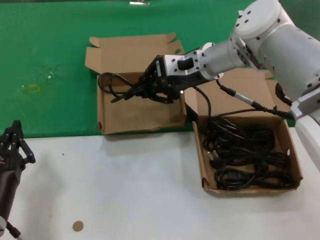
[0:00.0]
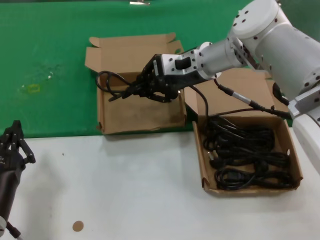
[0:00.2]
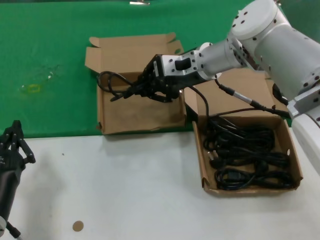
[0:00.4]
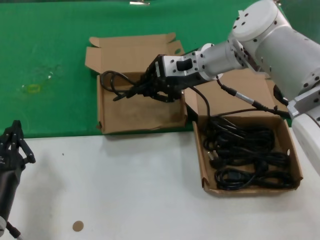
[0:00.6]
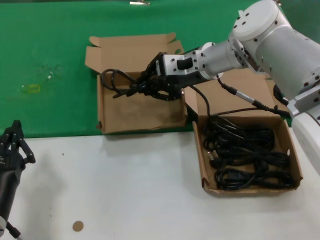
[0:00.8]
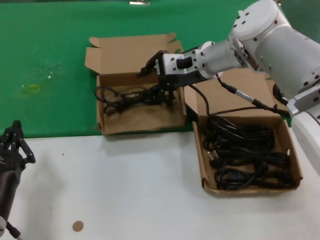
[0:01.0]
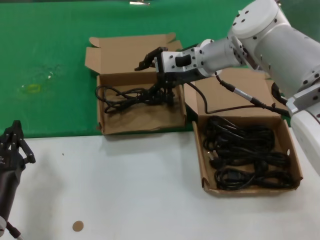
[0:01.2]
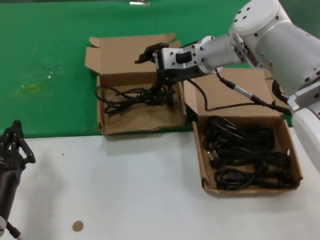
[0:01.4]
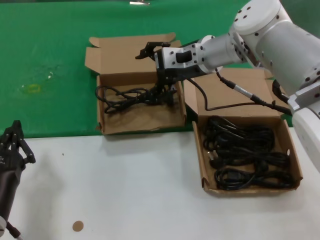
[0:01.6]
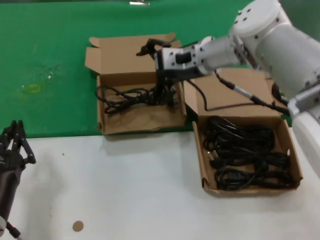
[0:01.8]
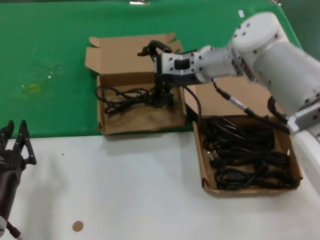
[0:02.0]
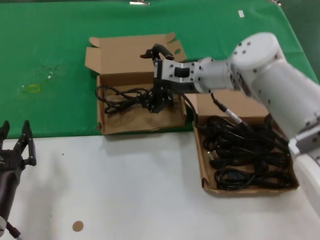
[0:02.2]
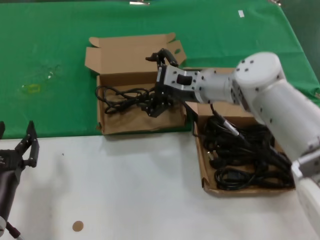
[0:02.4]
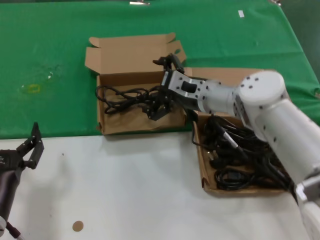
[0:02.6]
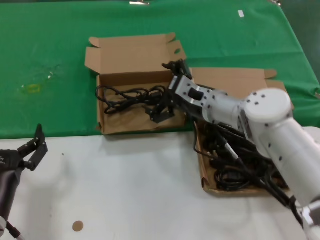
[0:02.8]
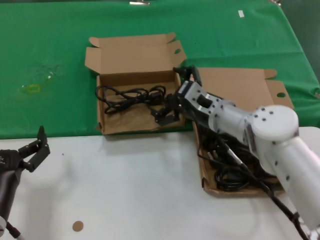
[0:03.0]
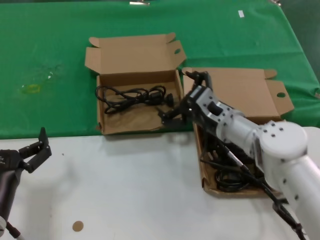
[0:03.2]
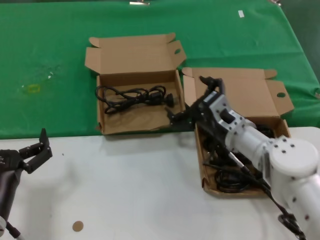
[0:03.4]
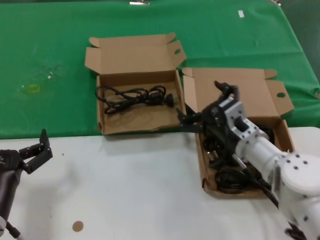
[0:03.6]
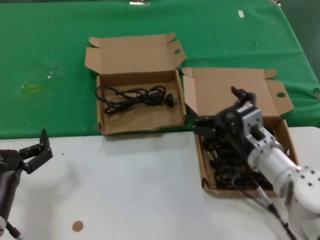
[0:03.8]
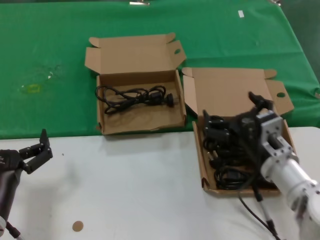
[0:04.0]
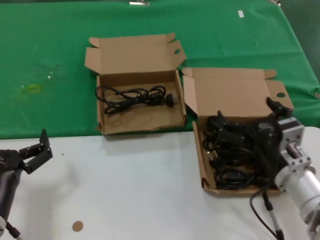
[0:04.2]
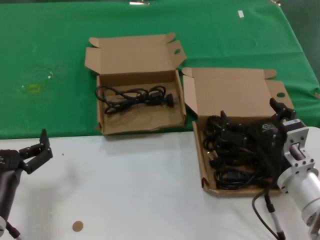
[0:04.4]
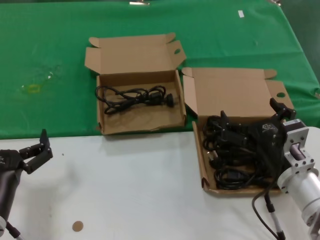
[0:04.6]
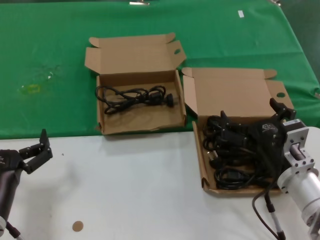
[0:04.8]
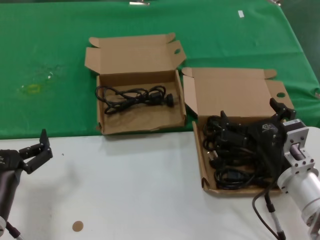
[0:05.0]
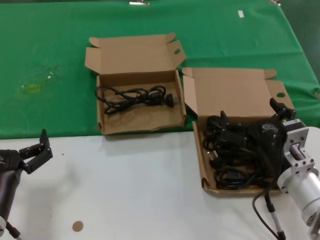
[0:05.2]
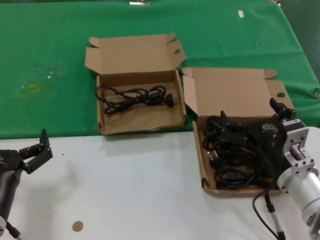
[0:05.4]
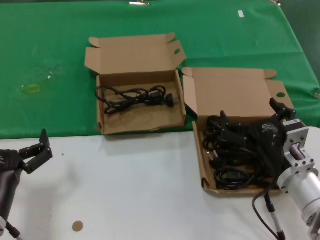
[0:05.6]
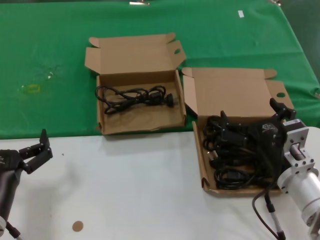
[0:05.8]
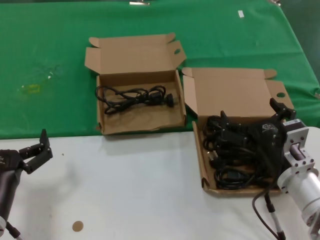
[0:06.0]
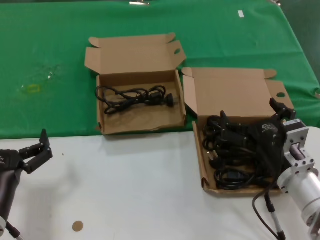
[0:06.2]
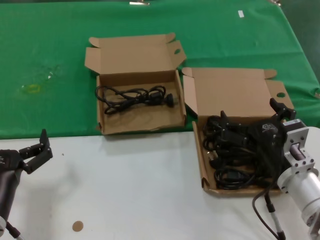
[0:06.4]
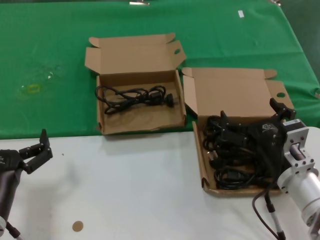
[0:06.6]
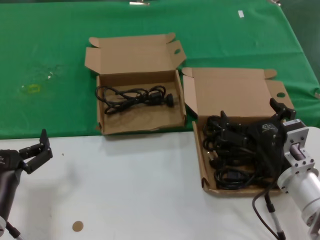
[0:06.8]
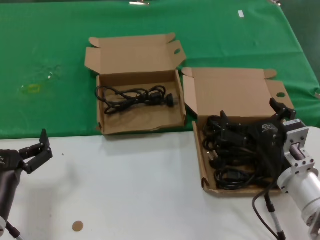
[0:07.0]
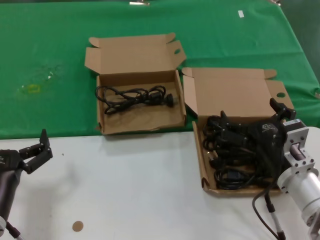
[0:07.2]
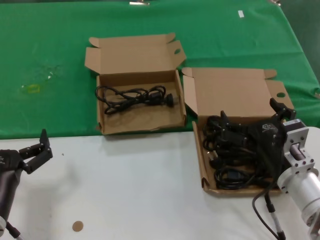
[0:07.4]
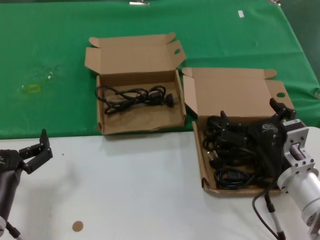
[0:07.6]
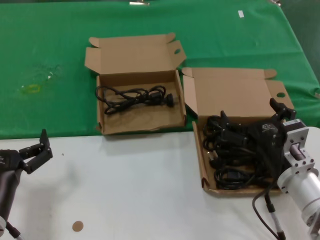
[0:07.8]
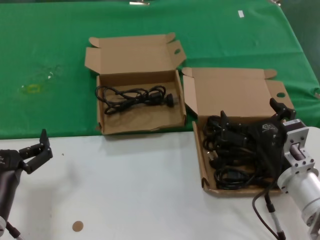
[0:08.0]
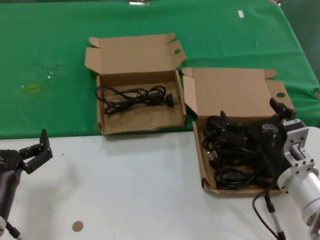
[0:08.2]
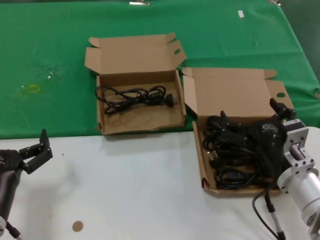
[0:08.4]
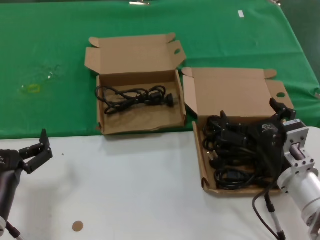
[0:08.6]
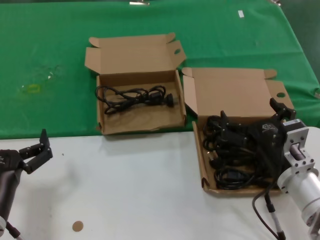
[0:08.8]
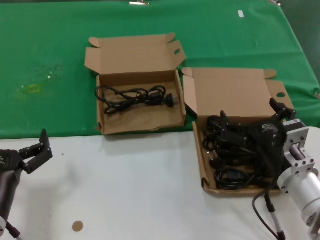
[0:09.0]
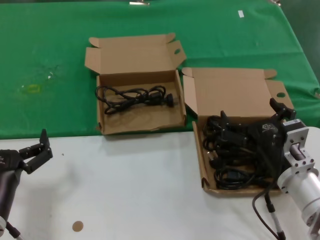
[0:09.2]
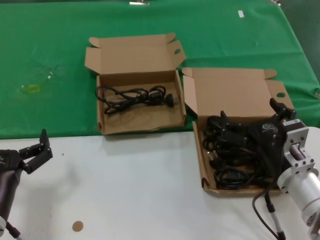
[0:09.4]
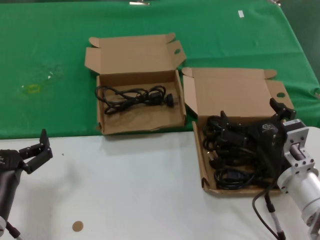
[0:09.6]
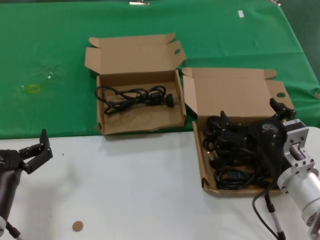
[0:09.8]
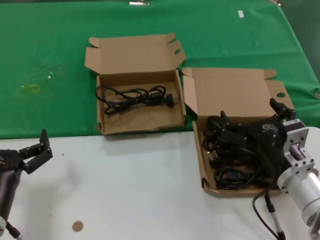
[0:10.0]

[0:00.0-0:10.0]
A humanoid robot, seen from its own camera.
Task of the whole recording: take the parts from the box containing them and put them into an empty box.
0:00.0 to 0:01.4: The two hands keep their place.
0:01.4 to 0:02.8: The right hand shifts roughly 15 cm downward and backward.
0:02.8 to 0:04.2: The right hand shifts approximately 20 cm backward and to the right.
0:04.2 to 0:10.0: The two hands keep their place.

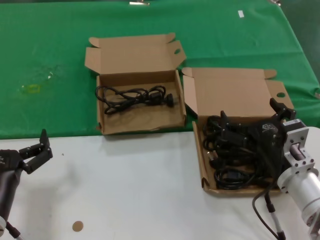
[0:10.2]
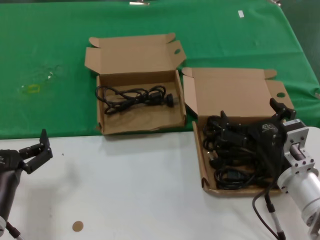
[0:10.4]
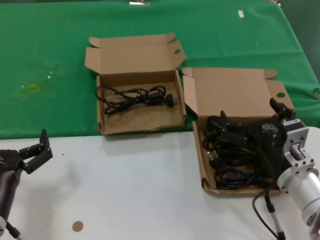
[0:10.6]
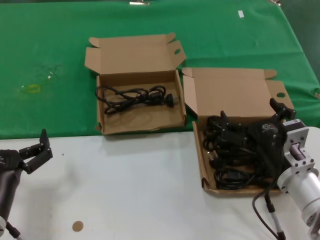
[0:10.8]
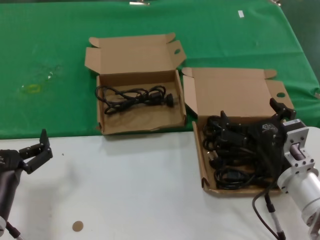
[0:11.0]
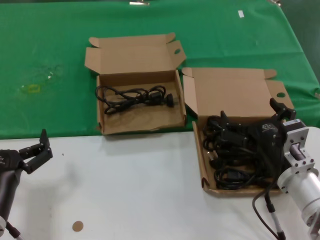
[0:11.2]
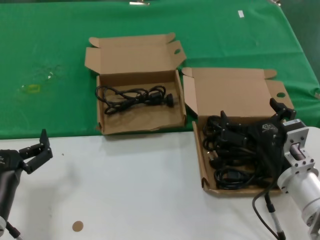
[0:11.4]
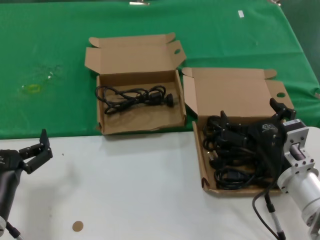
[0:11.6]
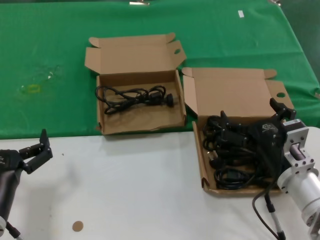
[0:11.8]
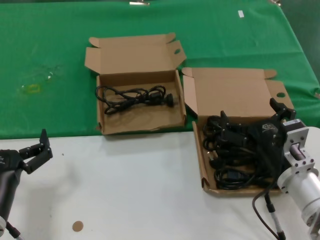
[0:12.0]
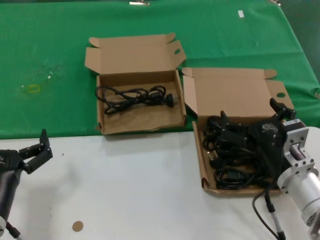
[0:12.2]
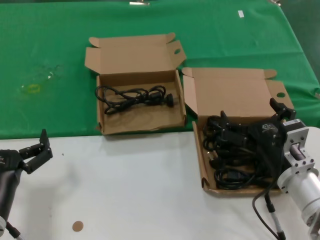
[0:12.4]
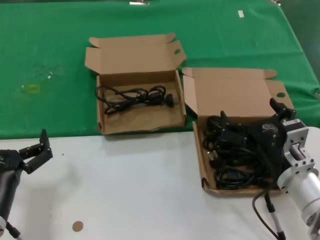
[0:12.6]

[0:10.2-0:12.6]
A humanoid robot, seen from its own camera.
Task of the whole recording: take the parts from the box containing them and put them into an empty box.
0:10.2 to 0:12.6: Neither hand changes place.
